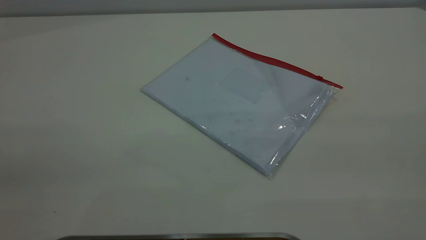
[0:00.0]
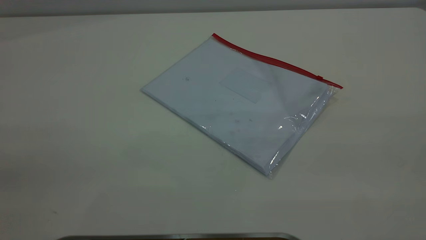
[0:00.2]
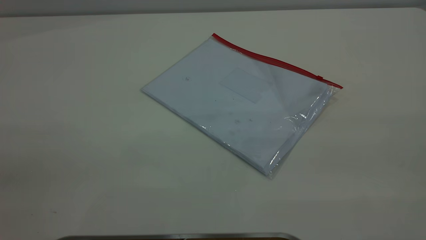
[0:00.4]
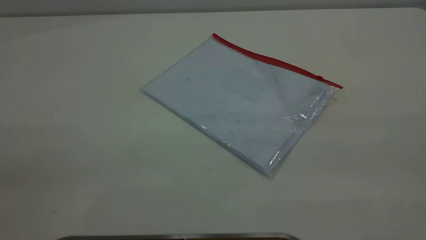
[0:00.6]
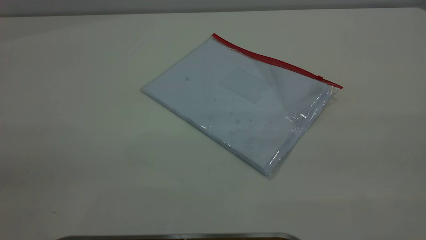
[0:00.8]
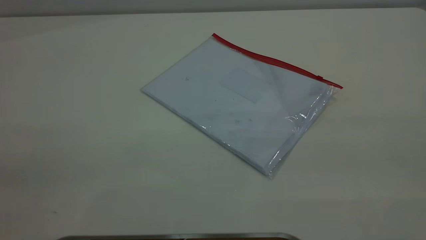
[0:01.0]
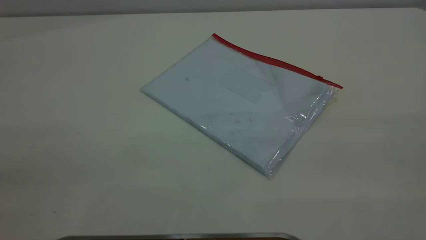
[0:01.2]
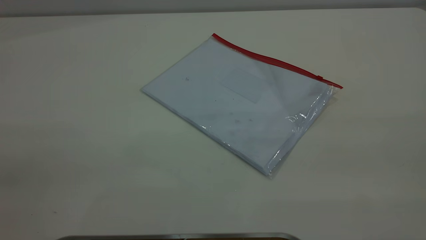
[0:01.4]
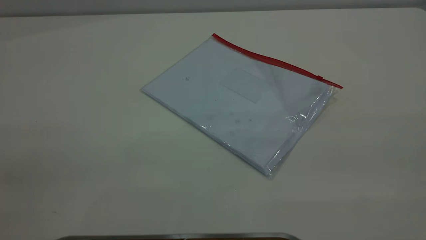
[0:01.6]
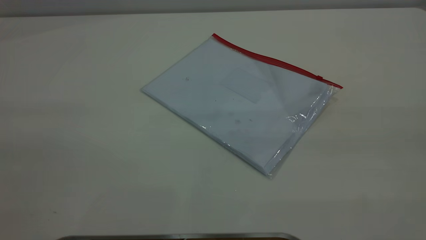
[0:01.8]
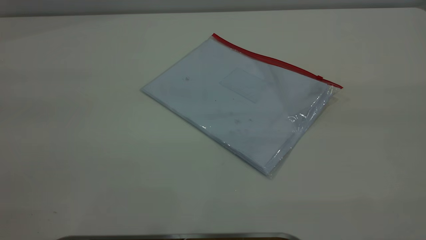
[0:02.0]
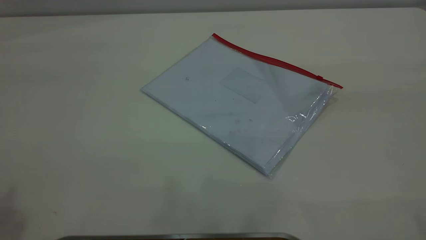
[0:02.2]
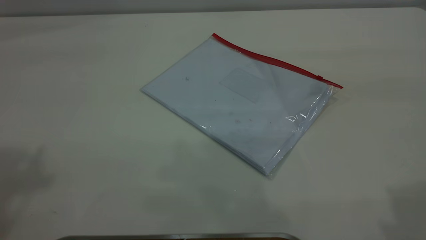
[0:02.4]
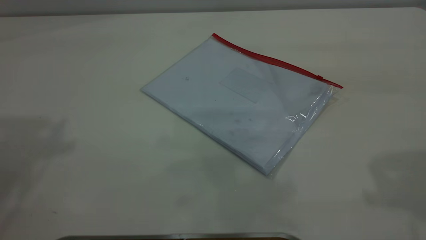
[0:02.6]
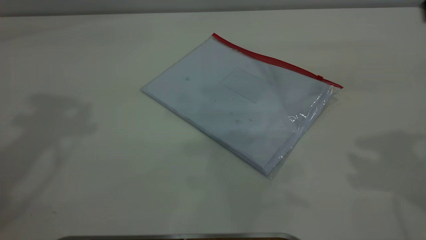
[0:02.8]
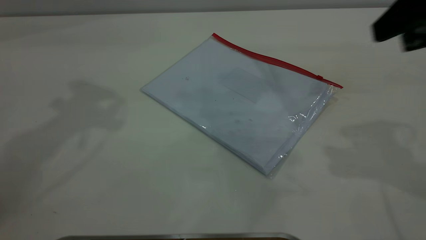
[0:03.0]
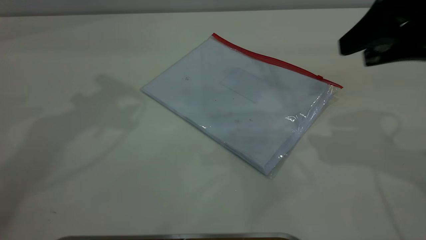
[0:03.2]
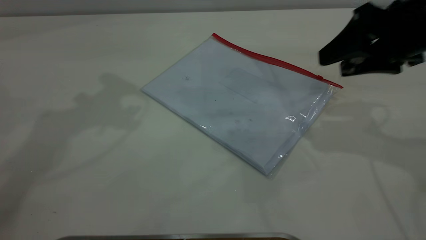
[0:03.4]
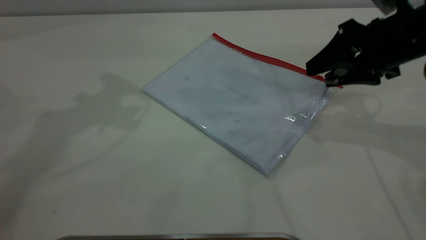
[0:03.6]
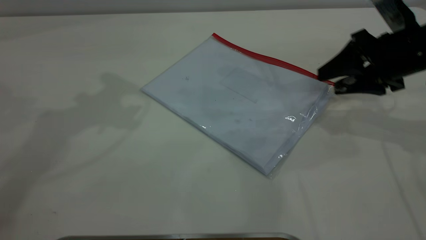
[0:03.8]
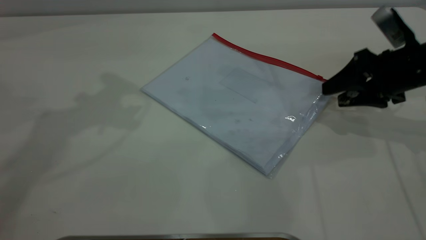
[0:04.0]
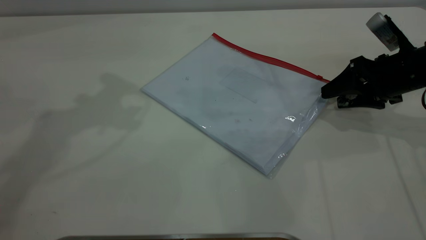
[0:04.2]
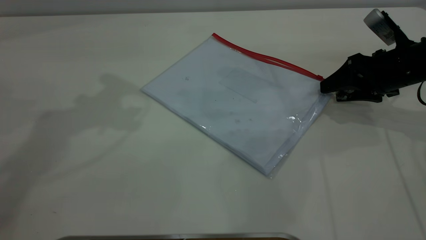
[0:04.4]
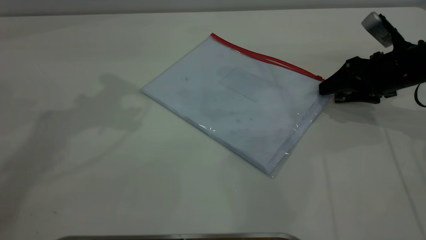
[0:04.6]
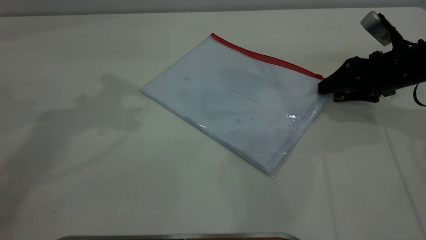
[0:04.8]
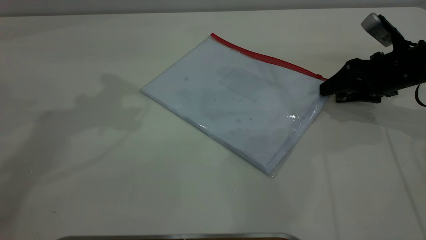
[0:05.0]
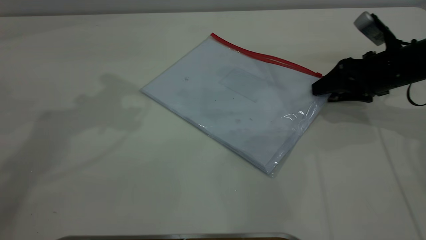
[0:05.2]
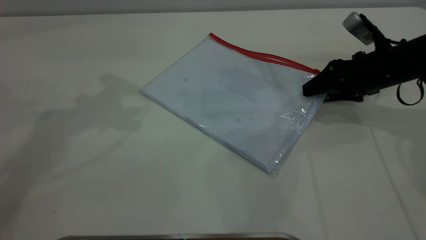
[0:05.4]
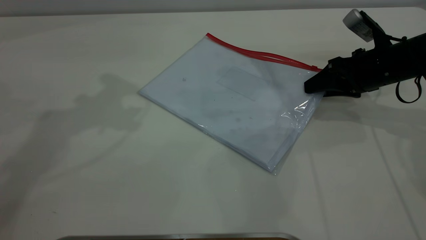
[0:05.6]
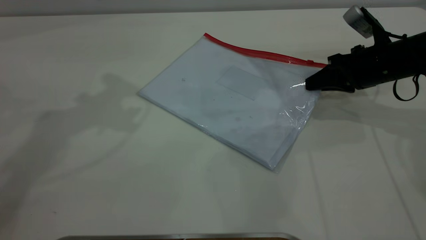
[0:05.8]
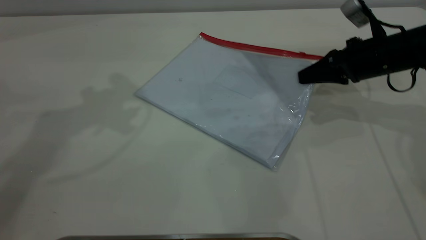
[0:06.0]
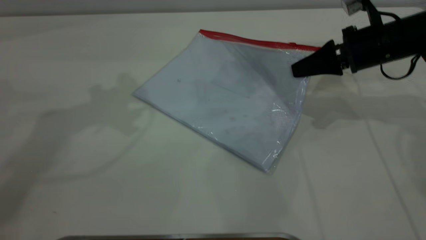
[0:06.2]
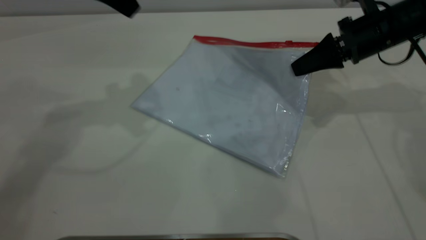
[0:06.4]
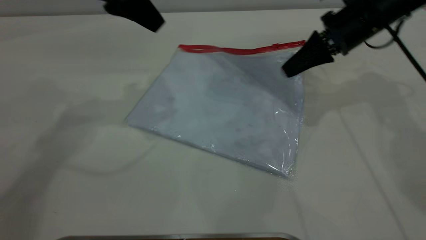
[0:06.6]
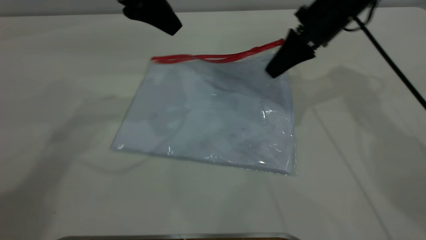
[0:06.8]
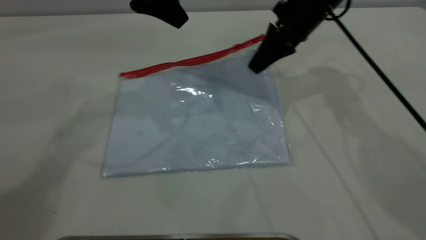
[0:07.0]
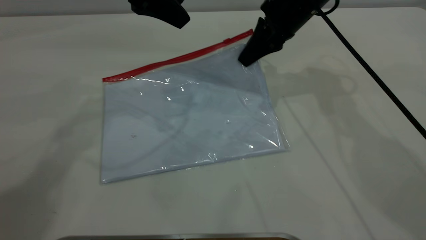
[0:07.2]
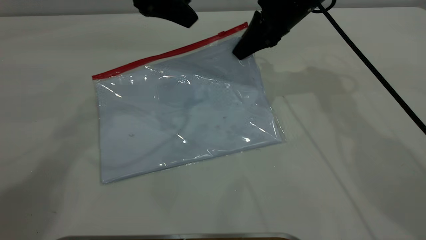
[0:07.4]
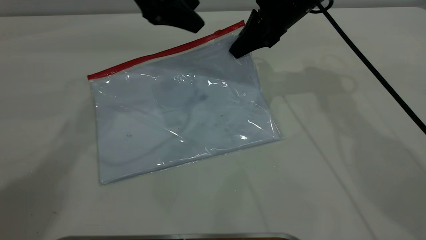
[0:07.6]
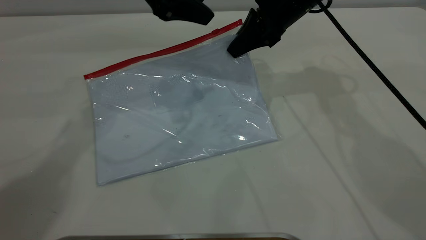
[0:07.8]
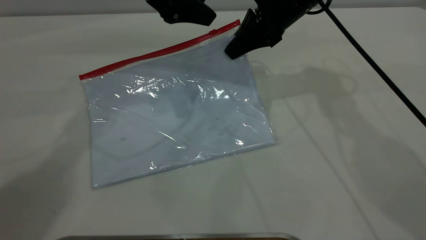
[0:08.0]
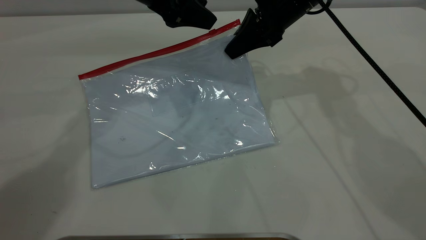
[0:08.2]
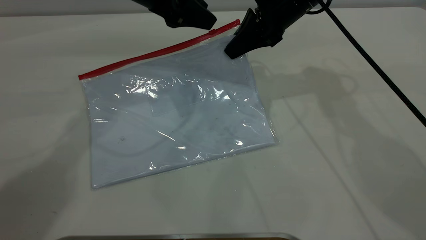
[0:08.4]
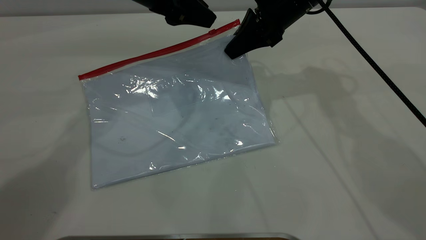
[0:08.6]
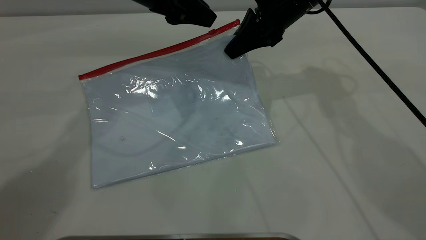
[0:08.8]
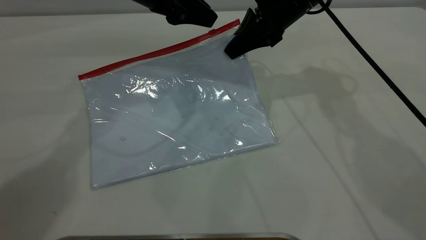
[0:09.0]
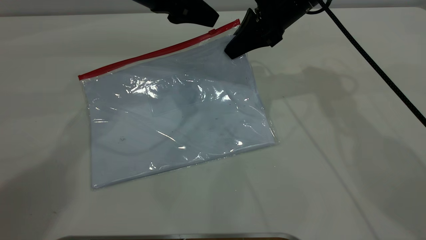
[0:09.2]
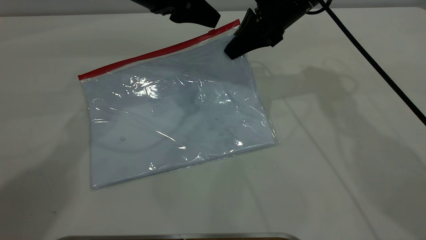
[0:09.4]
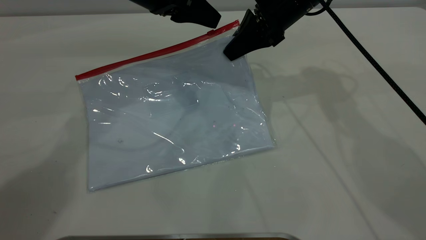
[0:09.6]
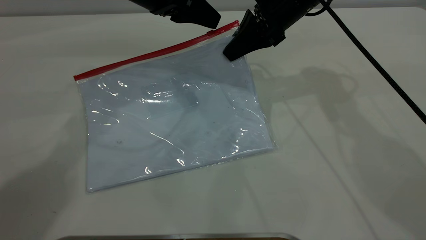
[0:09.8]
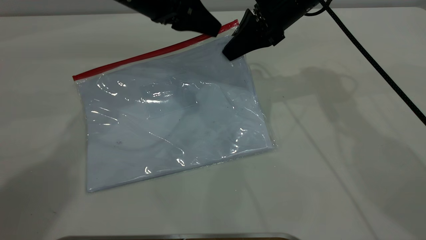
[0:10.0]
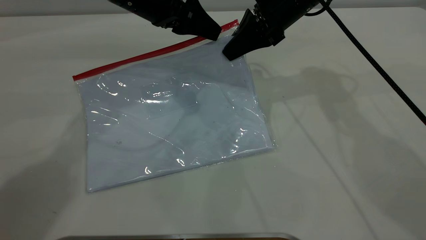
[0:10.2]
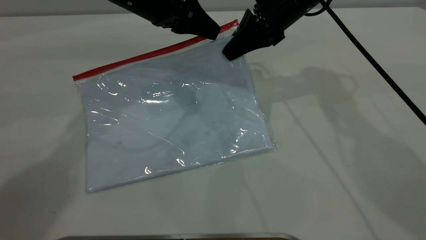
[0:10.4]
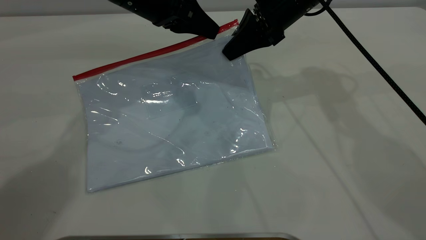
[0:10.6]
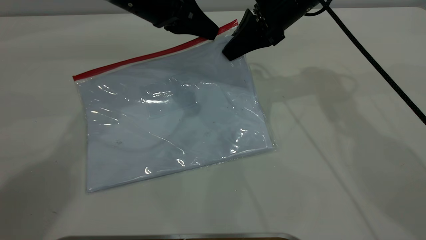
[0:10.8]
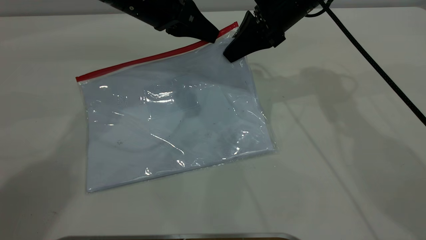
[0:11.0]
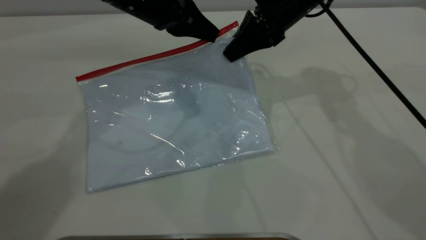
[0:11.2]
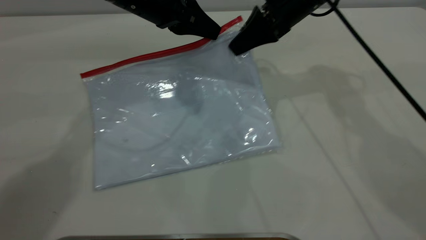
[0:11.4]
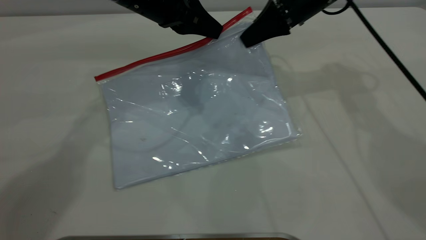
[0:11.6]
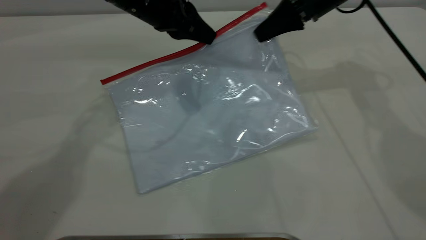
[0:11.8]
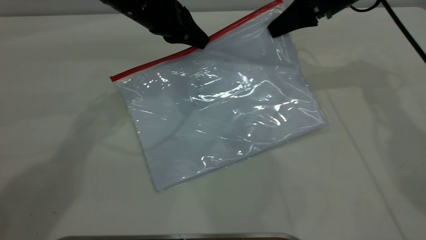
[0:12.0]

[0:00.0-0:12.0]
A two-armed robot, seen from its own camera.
Step, 0.0 to 7.0 s: Pick up the transparent plastic bag with the right gripper.
0.0 to 1.6 s: Neither gripper changes place.
1.6 to 3.0 s: The right gripper travels forward by approximately 25 cm.
3.0 to 4.4 s: The right gripper shifts about 25 cm downward and forward.
4.4 to 6.0 s: The right gripper closes up.
6.0 to 7.6 s: The left gripper heads downward and to the right, covering about 10 cm. Meanwhile the right gripper heads to the left, upward and forward, covering some 15 cm.
7.6 to 9.0 s: The left gripper closes.
9.0 to 10.4 s: The grippers make only small movements.
10.4 to 12.0 s: The left gripper closes. The right gripper goes some 10 cm to the right.

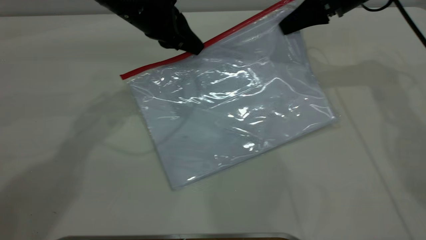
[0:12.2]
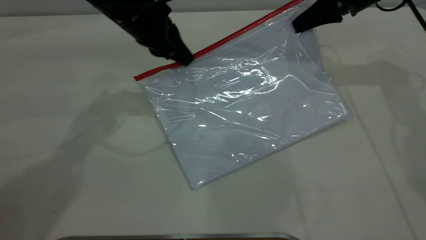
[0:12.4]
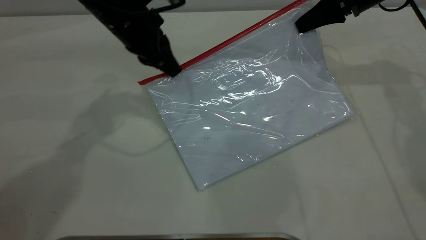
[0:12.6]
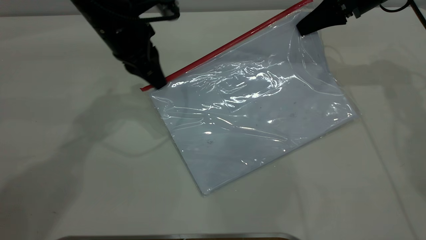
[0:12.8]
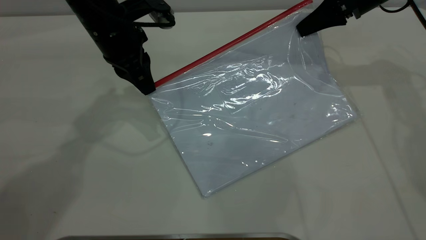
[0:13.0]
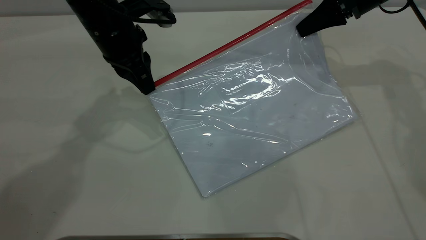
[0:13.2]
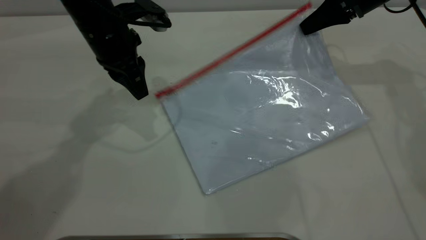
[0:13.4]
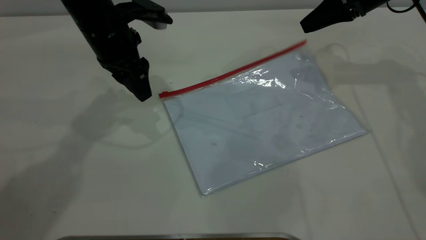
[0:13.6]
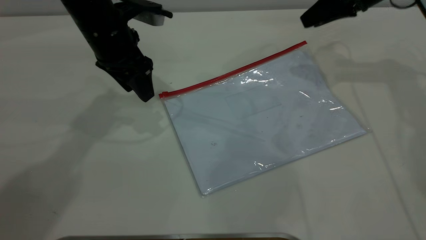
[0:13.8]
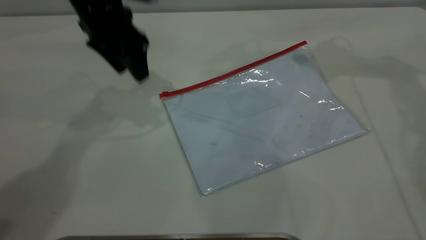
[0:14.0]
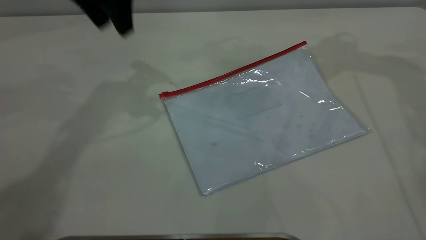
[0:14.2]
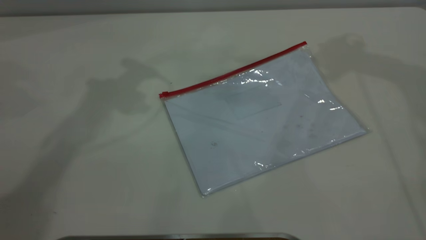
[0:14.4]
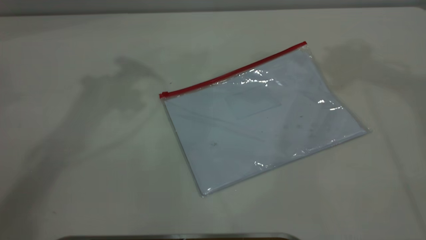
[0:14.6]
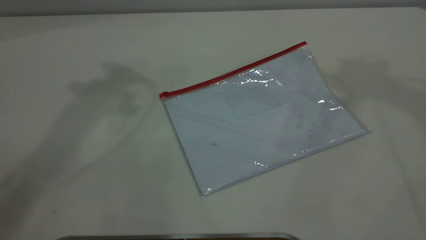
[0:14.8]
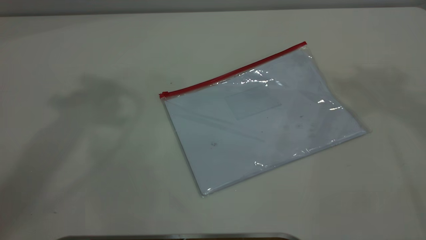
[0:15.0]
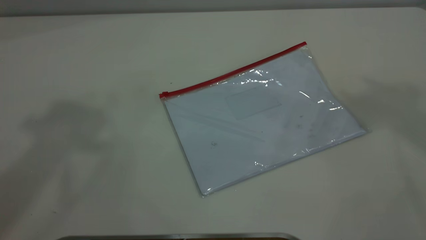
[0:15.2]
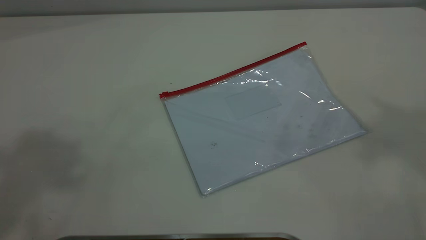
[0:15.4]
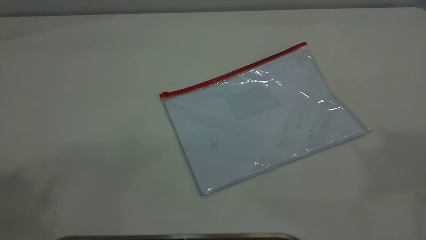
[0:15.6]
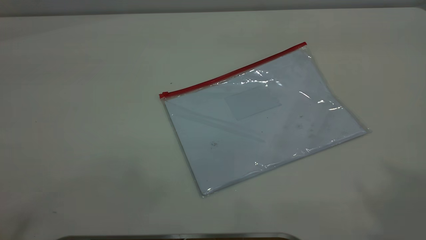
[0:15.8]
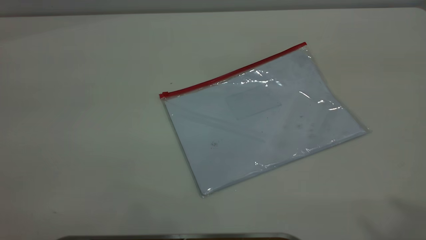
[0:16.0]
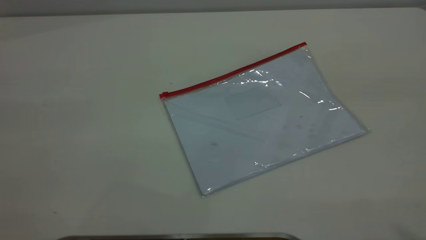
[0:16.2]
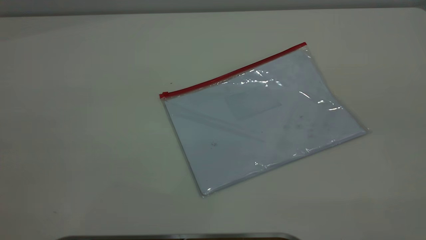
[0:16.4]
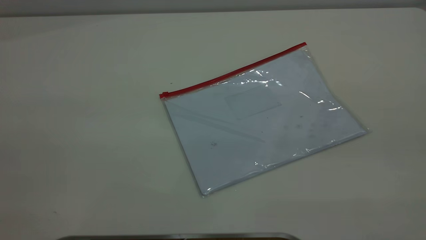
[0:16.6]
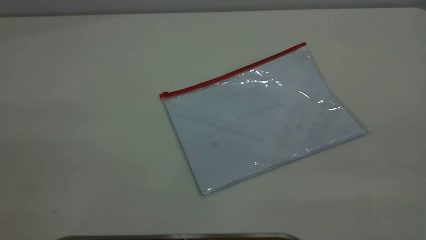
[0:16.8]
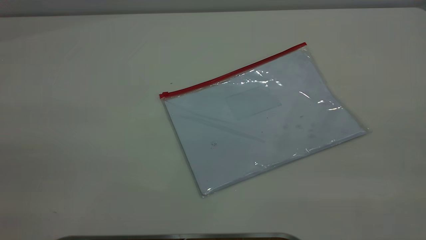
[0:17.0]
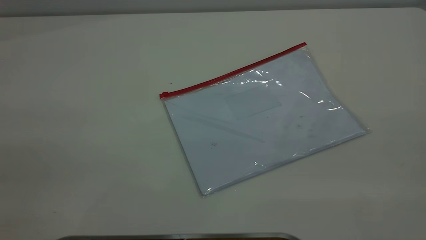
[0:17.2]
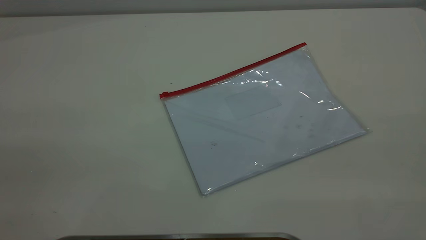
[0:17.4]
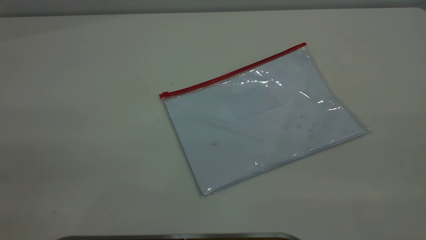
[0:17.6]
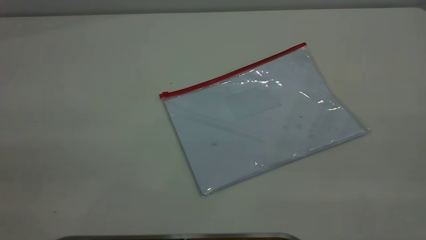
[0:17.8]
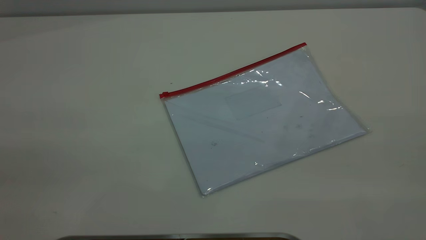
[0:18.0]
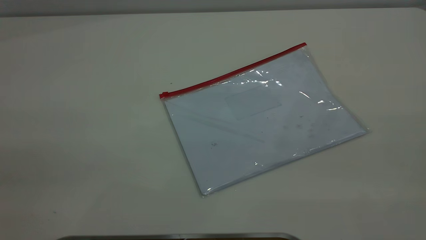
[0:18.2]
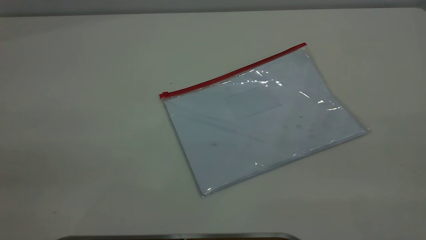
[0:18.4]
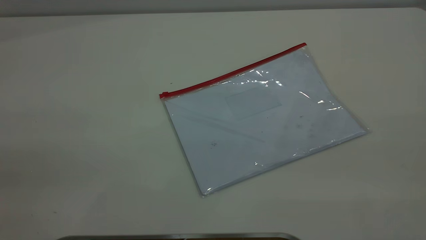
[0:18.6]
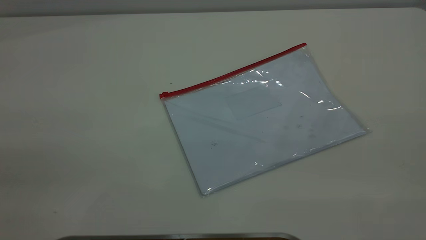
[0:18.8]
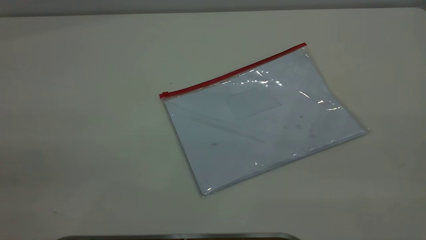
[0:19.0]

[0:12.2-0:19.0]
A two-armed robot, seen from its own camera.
Step, 13.4 to 14.6 s: Place the transparent plastic bag.
12.2 to 13.6 s: The left gripper opens; the right gripper opens.
13.6 to 15.0 s: Both grippers move upward, roughly 40 cm.
17.6 to 19.0 s: Both grippers stay about where they are.
